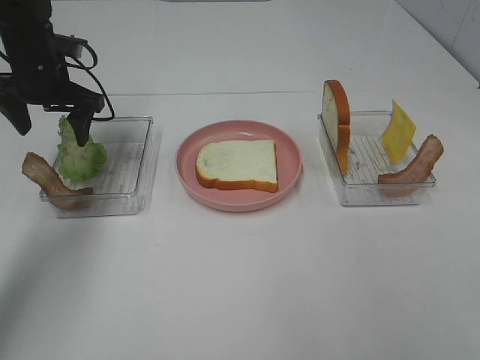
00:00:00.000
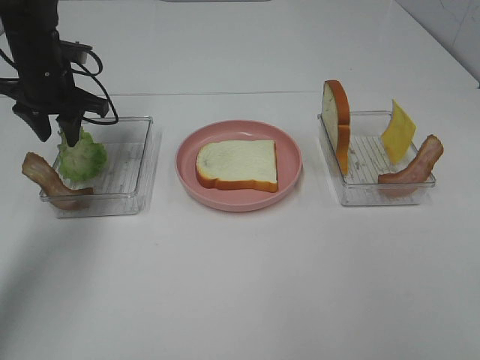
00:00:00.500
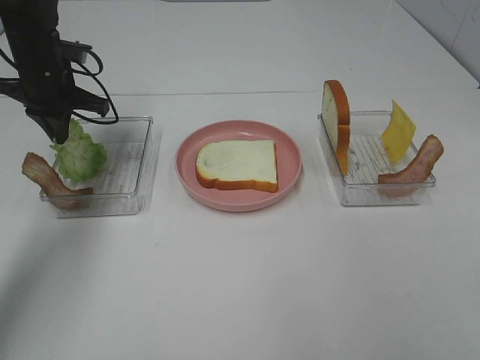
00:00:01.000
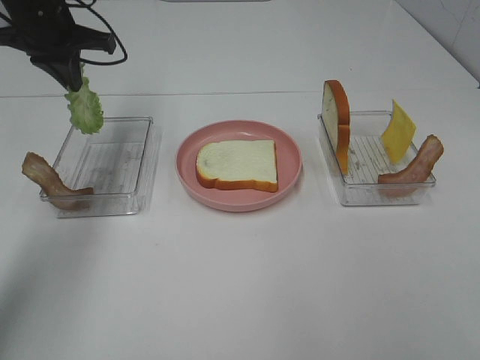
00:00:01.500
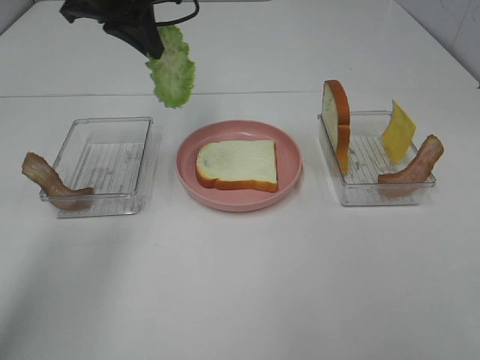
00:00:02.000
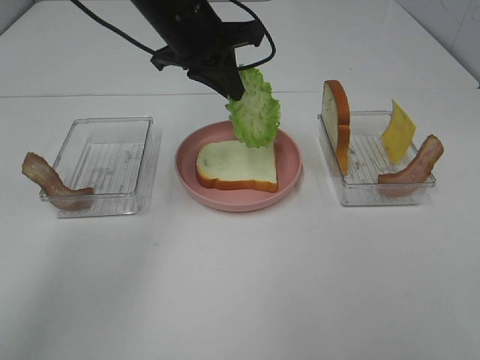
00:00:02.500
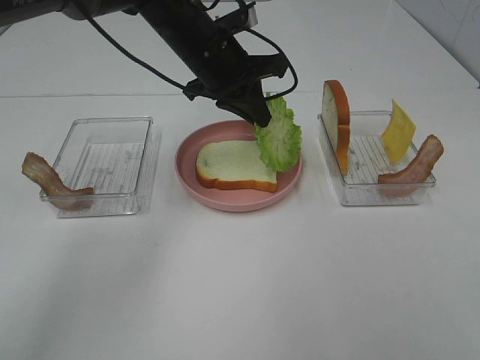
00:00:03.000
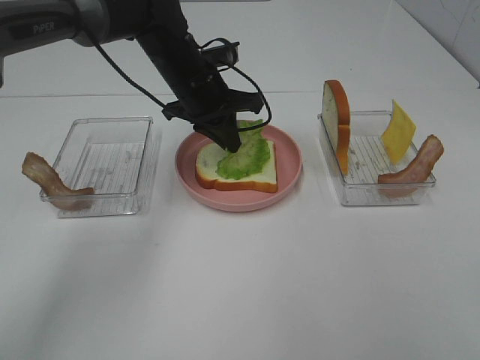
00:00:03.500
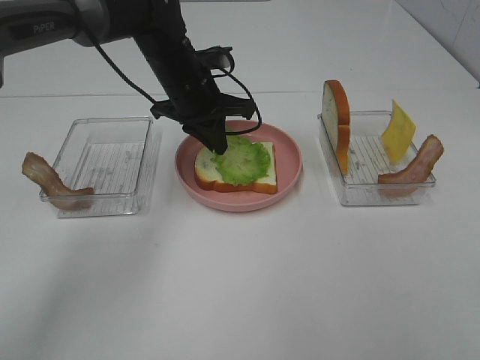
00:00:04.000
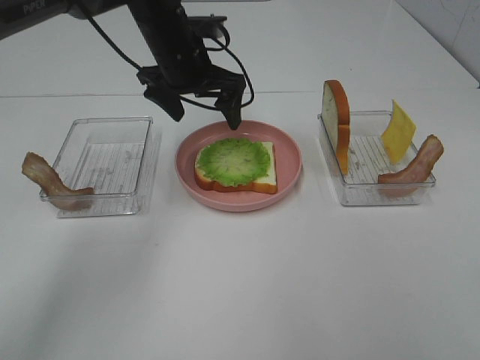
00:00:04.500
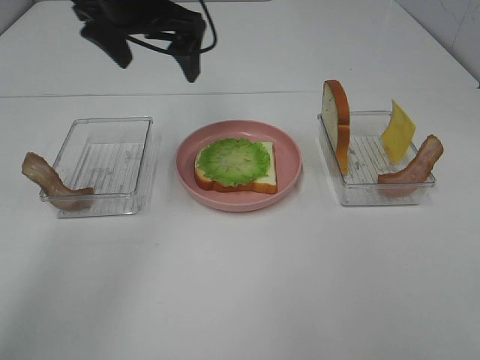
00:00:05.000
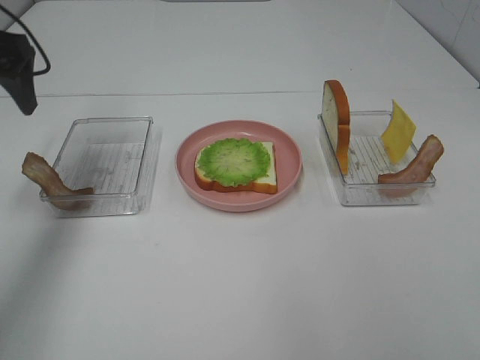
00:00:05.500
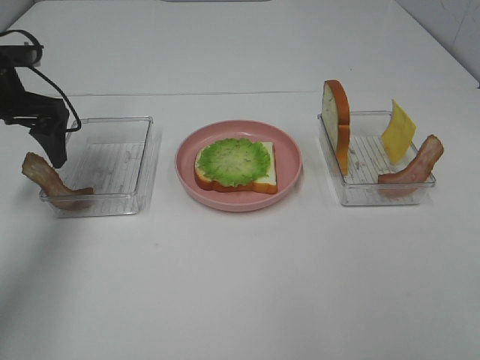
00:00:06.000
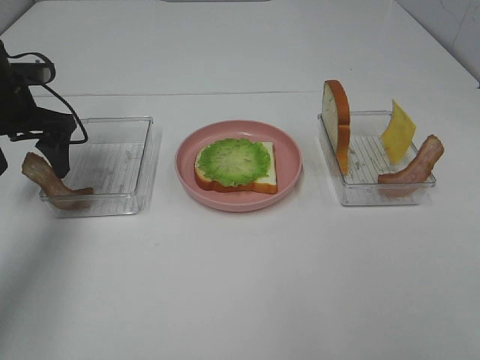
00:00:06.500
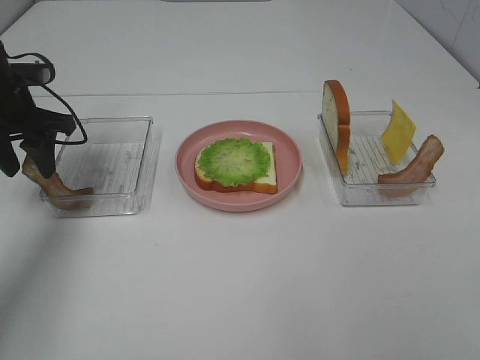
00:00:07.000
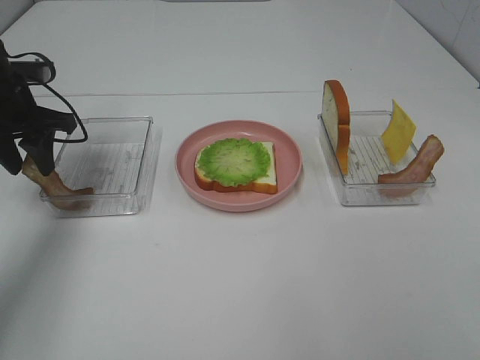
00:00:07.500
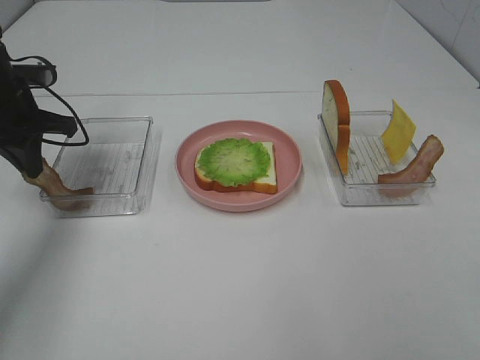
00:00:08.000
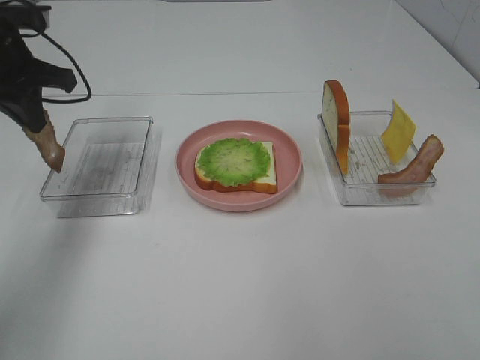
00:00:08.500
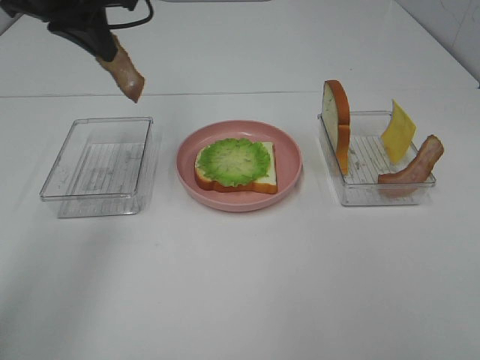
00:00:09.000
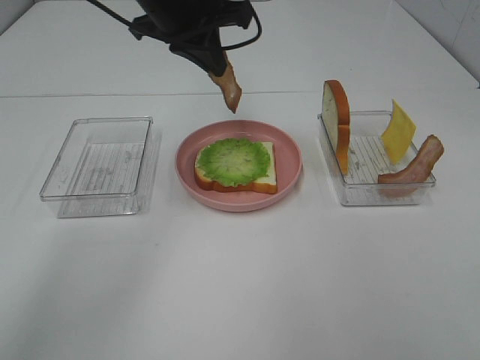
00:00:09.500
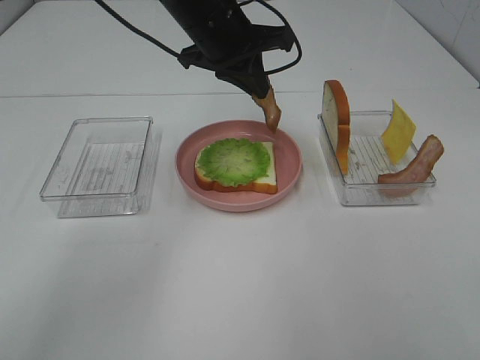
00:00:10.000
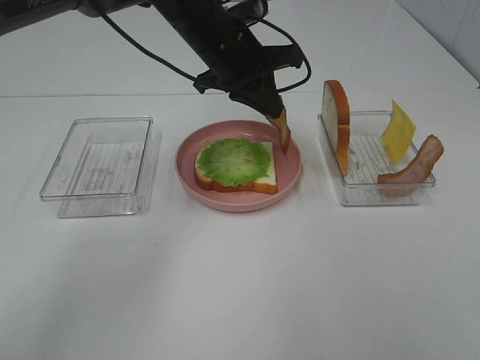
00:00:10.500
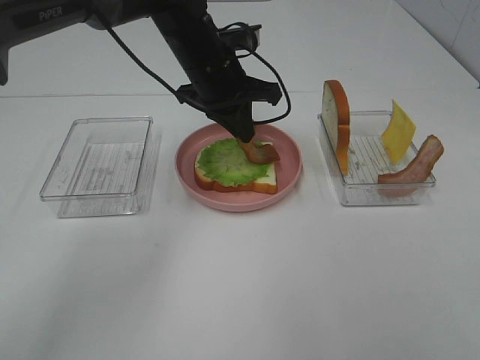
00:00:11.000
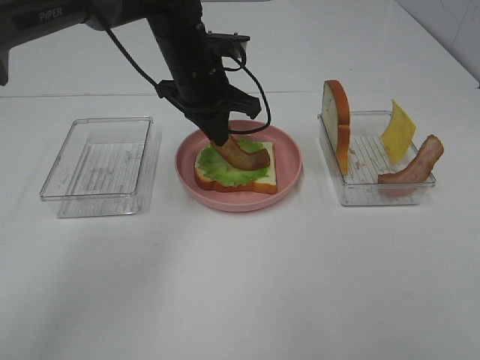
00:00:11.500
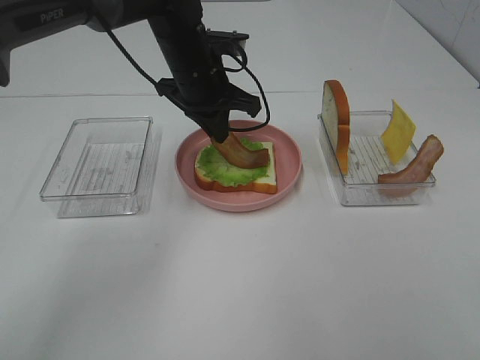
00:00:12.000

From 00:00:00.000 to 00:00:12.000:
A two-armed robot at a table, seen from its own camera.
Task of the whole recording: Make sandwiches.
Step, from 00:00:01.000 to 00:00:04.500: Left hand:place the lettuce slice on the bread slice.
Step, from 00:00:05.000 to 00:00:08.000: Left hand:grab the bacon.
From 00:00:00.000 to 00:00:02.000: The left gripper shifts roughly 15 cm upward and to the right, and closes its fingers.
From 00:00:02.000 to 00:00:04.000: The left gripper shifts some 15 cm downward and to the right.
From 00:00:04.000 to 00:00:06.000: The left gripper moves to the left, some 20 cm, and opens its fingers.
From 00:00:06.000 to 00:00:08.000: The left gripper closes its fingers.
From 00:00:08.000 to 00:00:10.000: The left gripper moves to the right, about 25 cm.
From 00:00:10.000 to 00:00:12.000: The left gripper moves downward, some 5 cm.

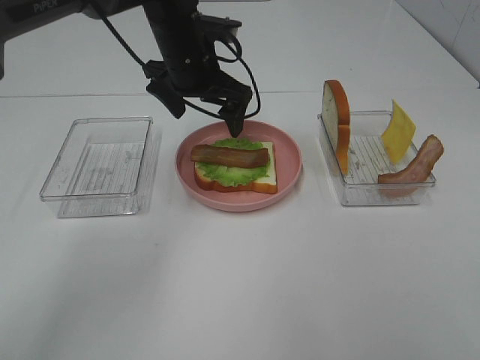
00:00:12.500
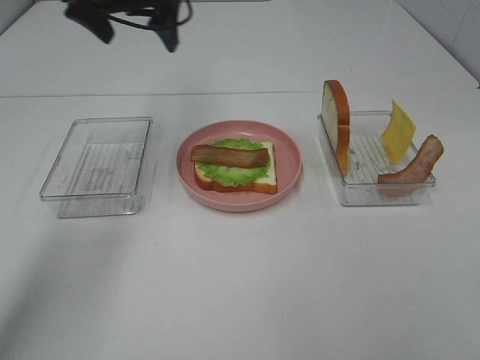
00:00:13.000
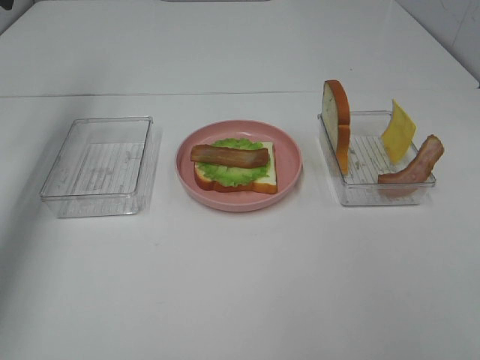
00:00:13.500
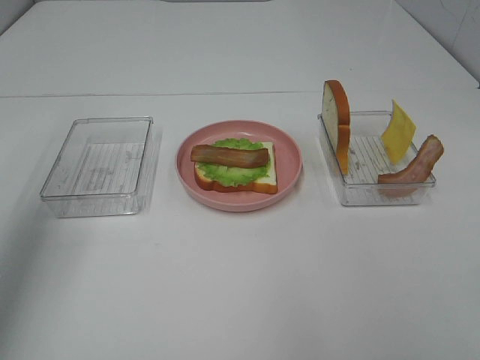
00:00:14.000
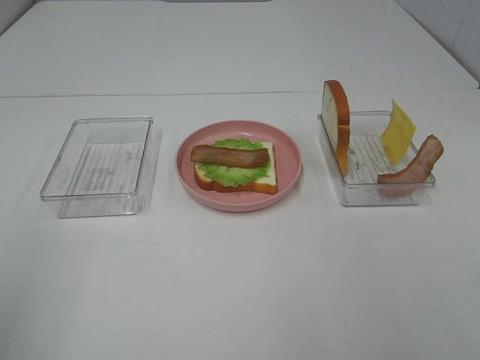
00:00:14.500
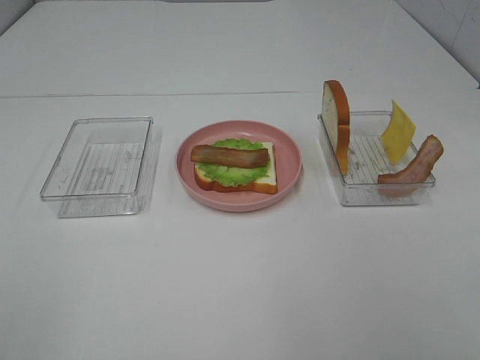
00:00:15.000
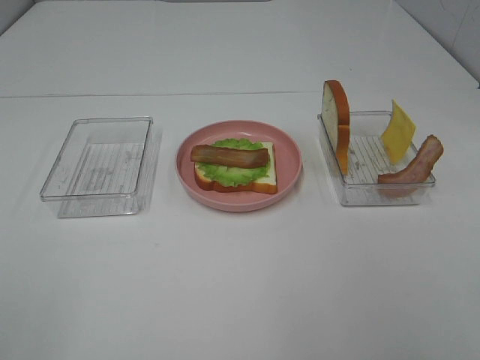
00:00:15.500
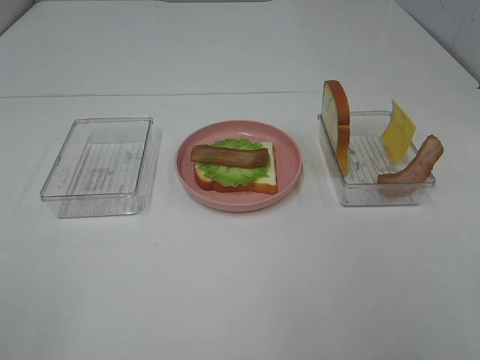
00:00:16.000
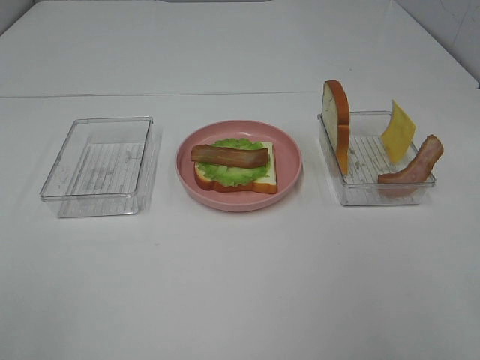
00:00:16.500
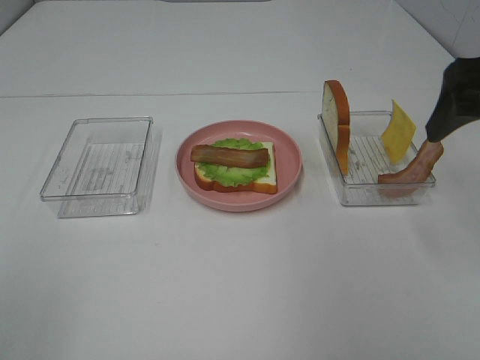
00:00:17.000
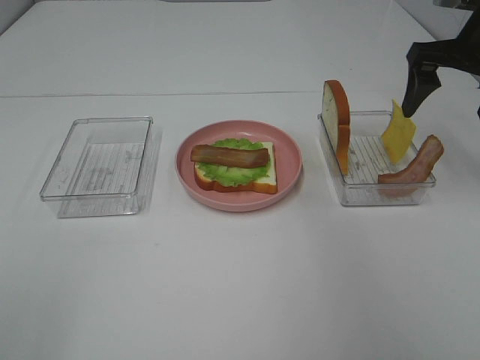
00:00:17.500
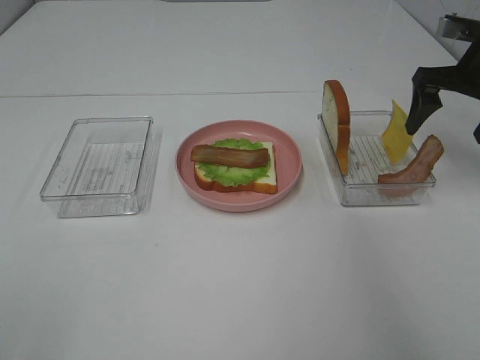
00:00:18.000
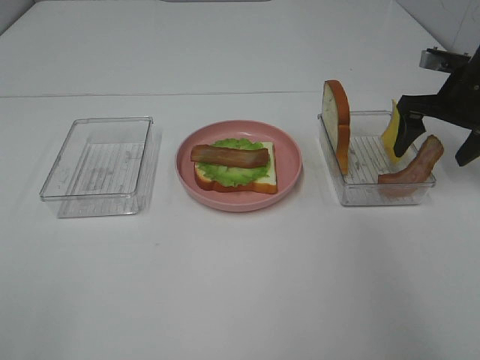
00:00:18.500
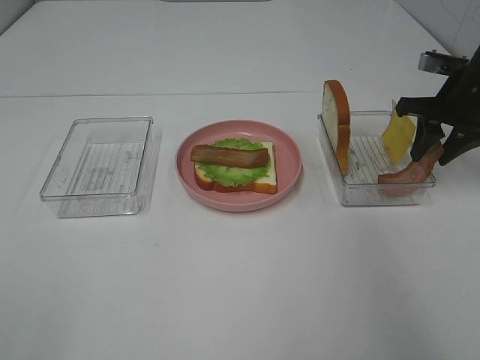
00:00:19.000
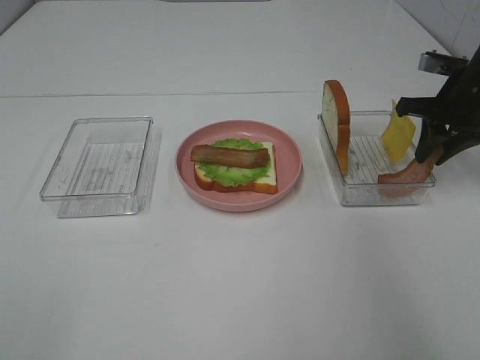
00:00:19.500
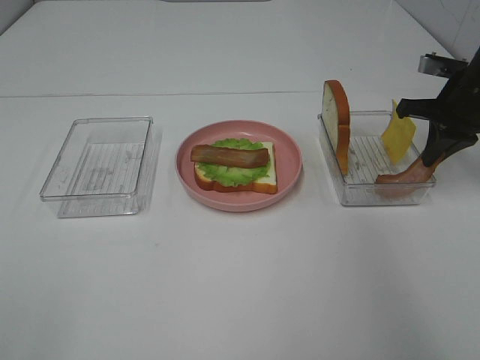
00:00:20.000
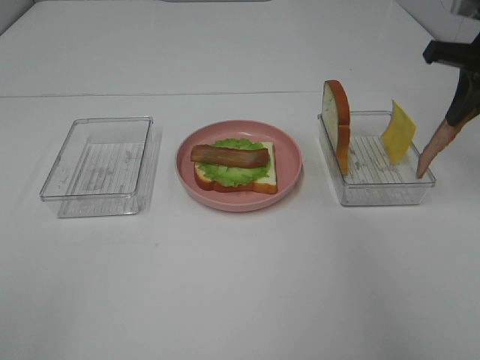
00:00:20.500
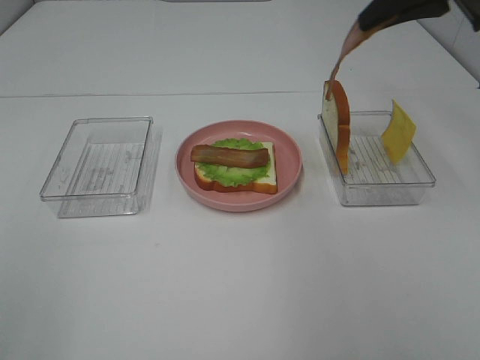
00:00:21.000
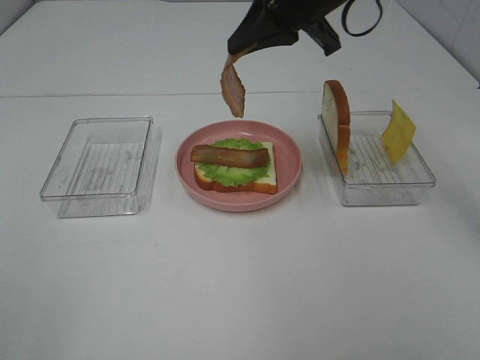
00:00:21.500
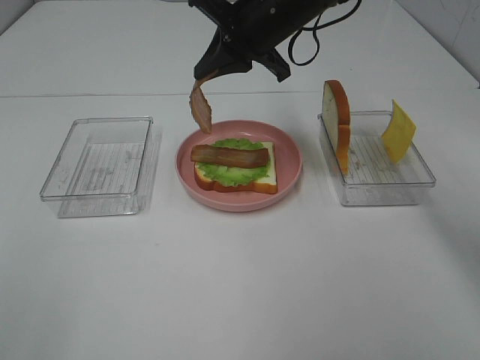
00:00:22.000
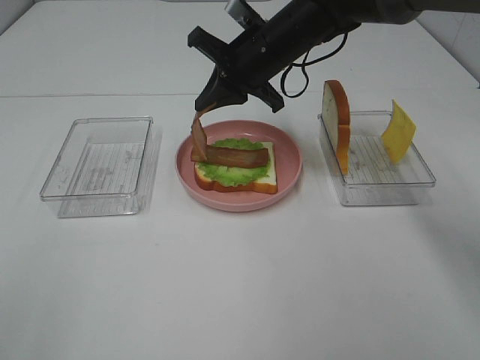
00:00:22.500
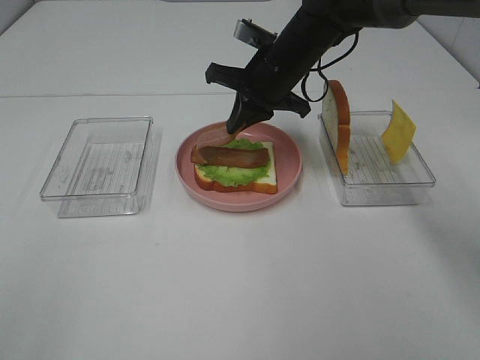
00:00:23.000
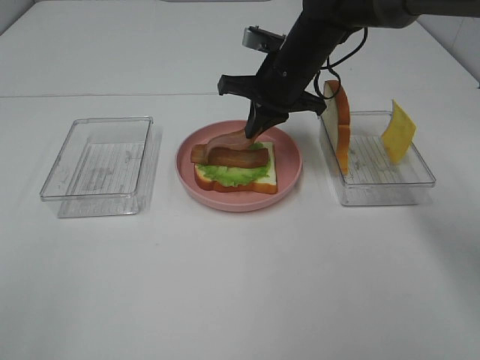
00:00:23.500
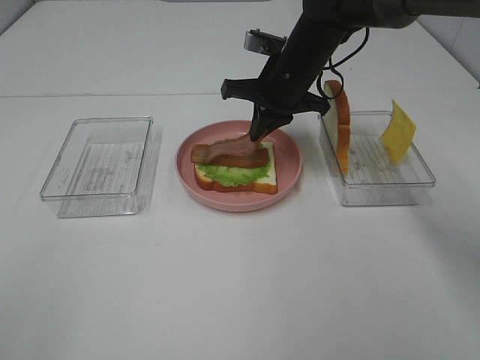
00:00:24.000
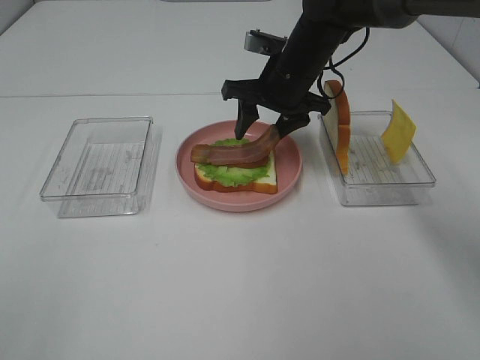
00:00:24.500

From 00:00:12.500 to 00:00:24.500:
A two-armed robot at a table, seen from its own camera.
Task of the whole recording: Make sandwiches.
Step, from 00:00:12.500 to 00:00:19.500: Right hand:grab the bacon.
From 00:00:12.500 to 00:00:14.500: The left gripper moves backward and to the left, approximately 50 cm.
From 00:00:16.500 to 00:00:18.500: The right gripper travels forward and downward by approximately 35 cm.
From 00:00:18.500 to 00:00:20.500: The right gripper travels upward by approximately 10 cm, and closes up.
From 00:00:20.500 to 00:00:22.500: The right gripper goes some 25 cm to the left.
From 00:00:22.500 to 00:00:24.500: The right gripper opens up.

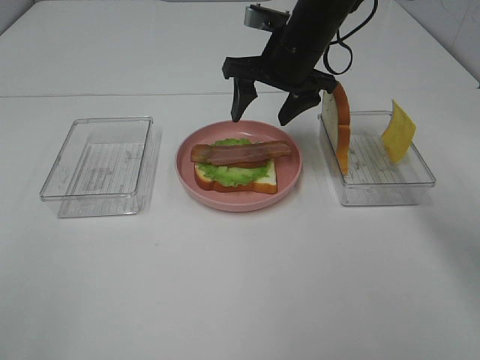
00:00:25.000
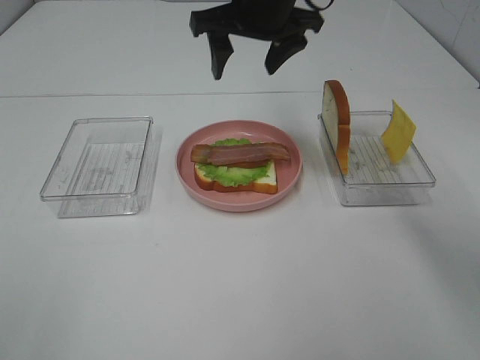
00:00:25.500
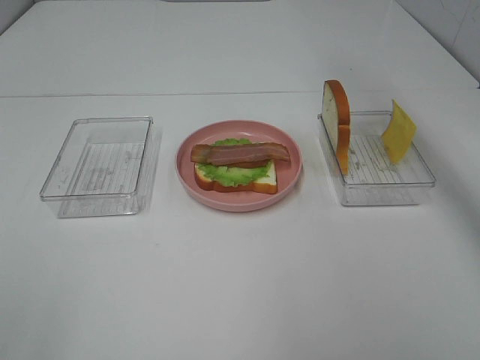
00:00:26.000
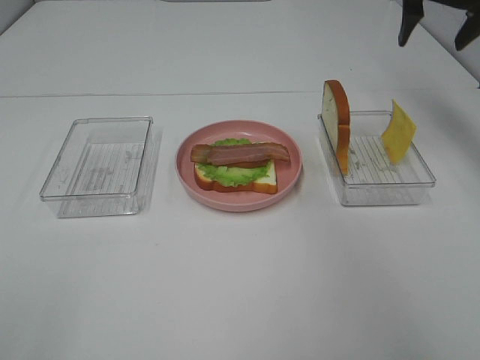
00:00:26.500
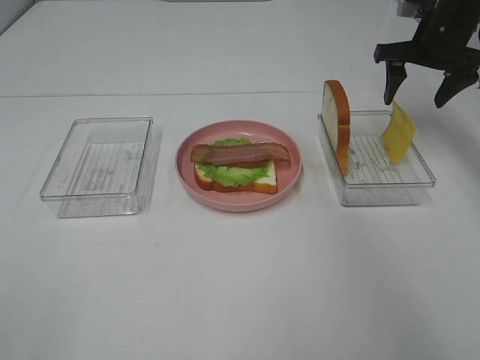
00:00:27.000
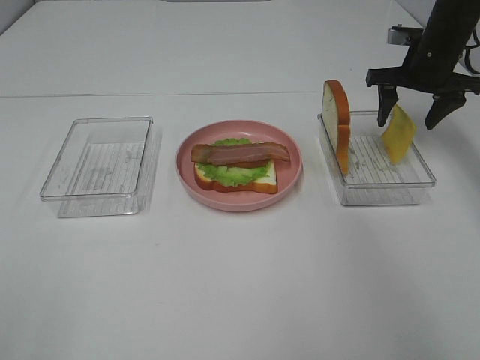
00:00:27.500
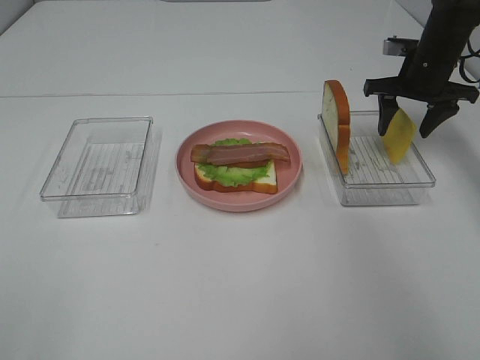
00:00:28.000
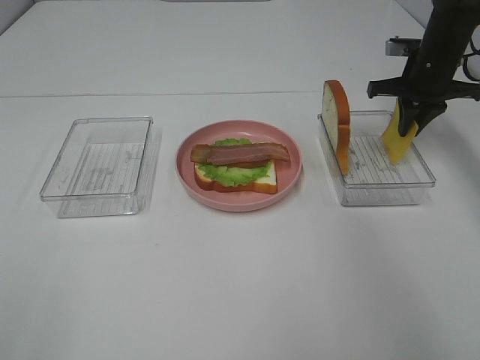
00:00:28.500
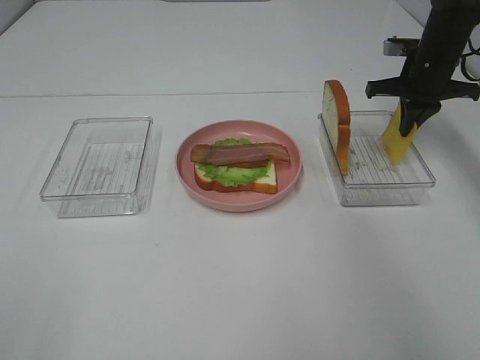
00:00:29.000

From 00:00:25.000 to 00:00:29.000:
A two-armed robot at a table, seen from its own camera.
Task of the whole recording: Make sandwiches.
Step, from 00:00:25.500 to 00:00:28.500: Right hand:grab the cheese slice.
From 00:00:25.000 to 00:00:27.000: The right gripper moves to the right, about 20 cm.
From 00:00:27.000 to 00:00:29.000: The right gripper shifts about 5 cm downward, and closes.
